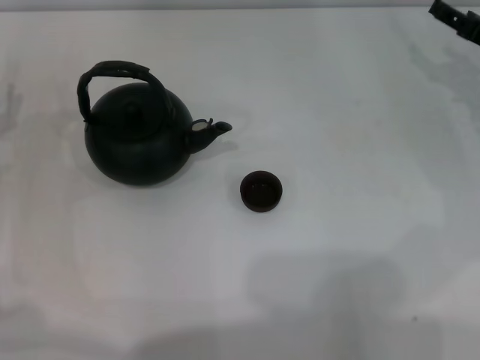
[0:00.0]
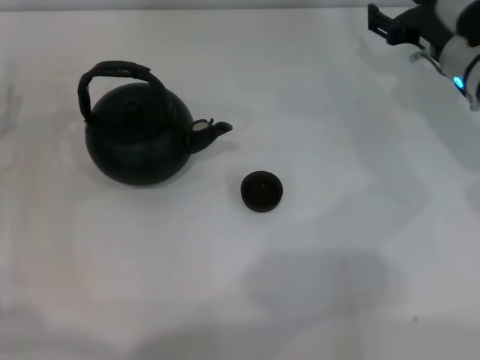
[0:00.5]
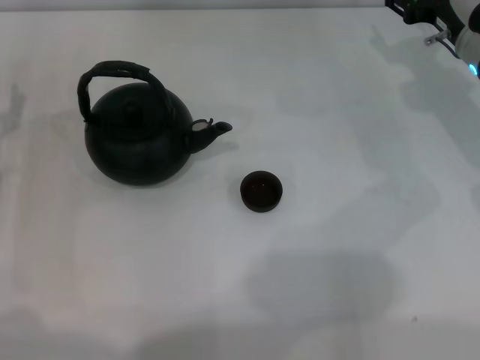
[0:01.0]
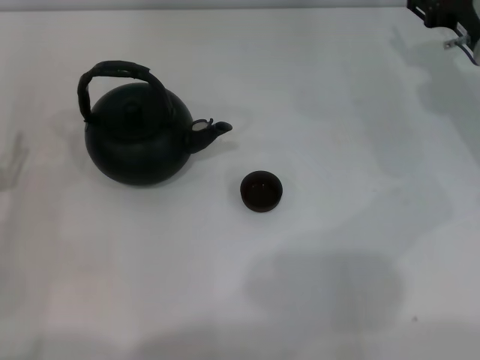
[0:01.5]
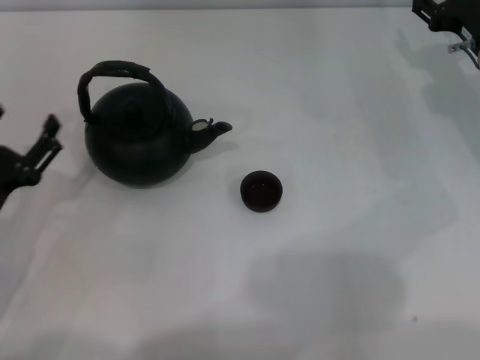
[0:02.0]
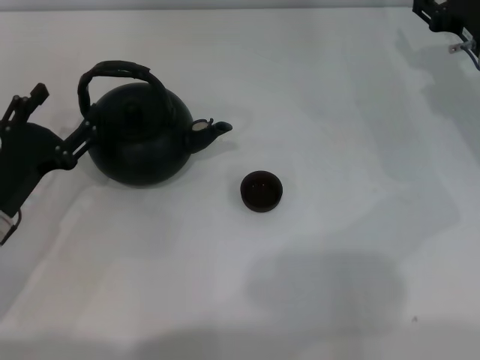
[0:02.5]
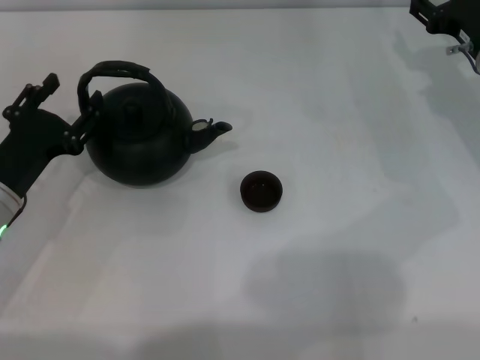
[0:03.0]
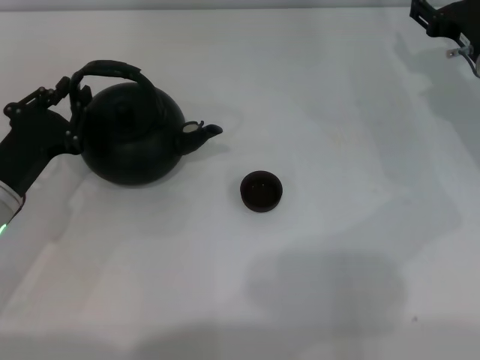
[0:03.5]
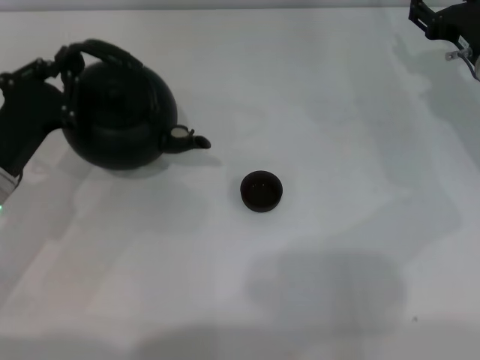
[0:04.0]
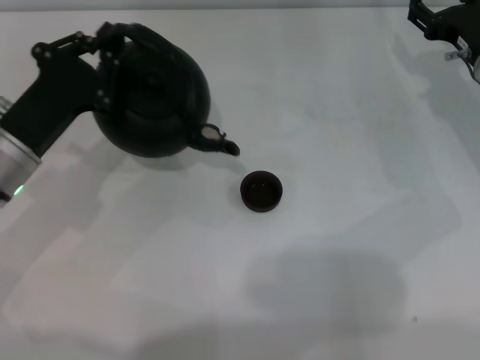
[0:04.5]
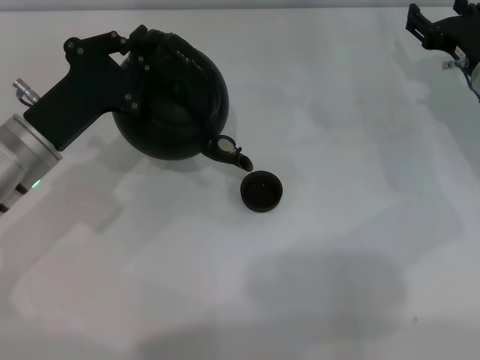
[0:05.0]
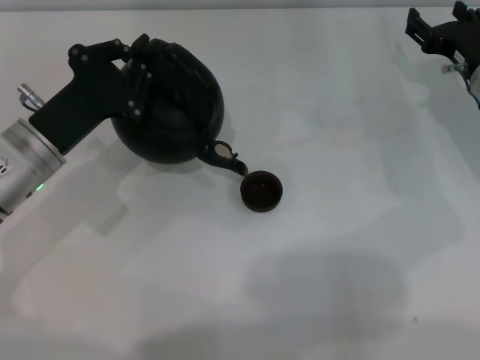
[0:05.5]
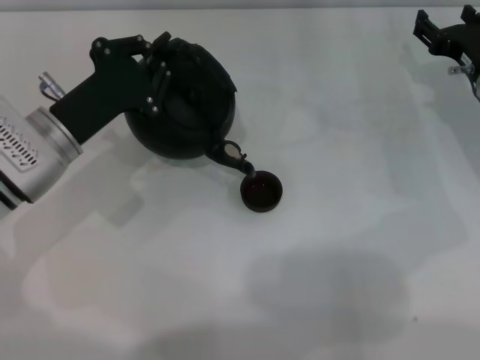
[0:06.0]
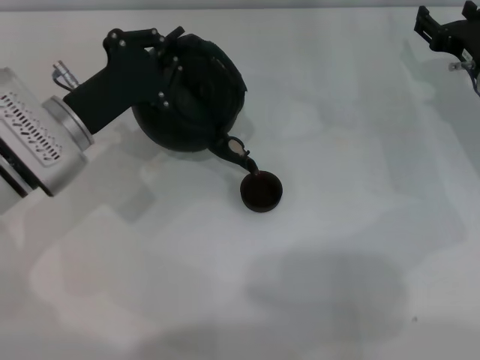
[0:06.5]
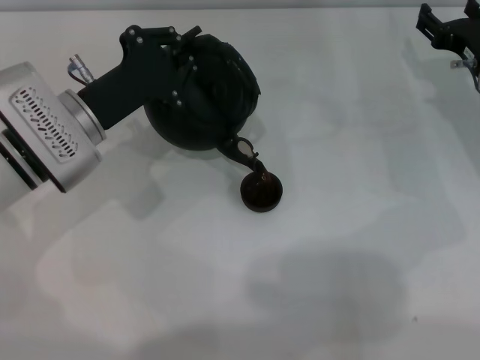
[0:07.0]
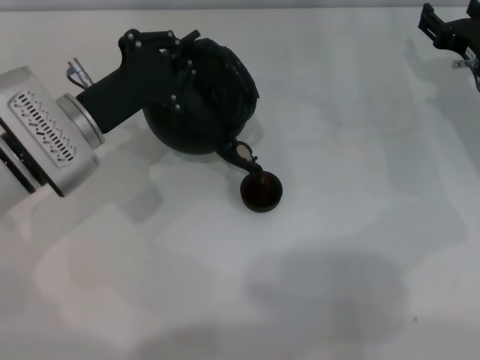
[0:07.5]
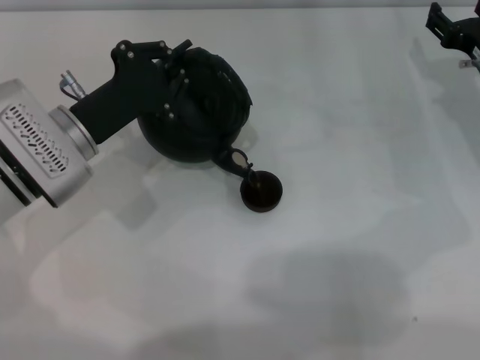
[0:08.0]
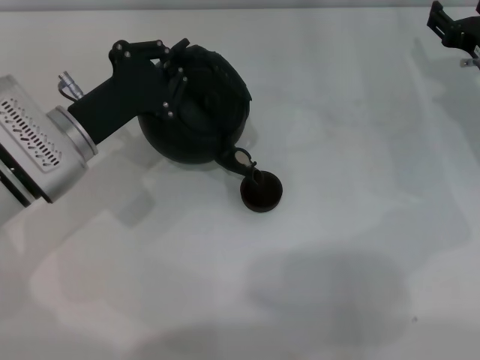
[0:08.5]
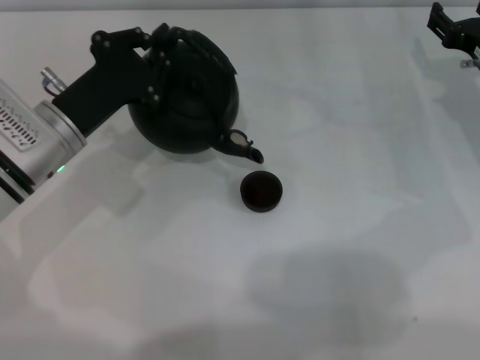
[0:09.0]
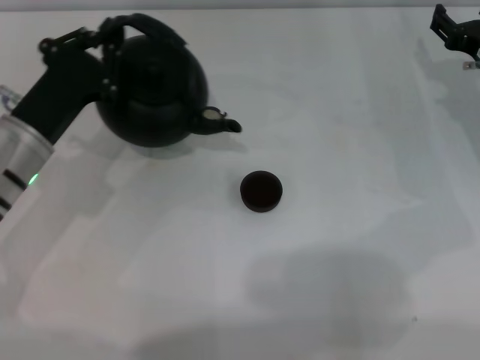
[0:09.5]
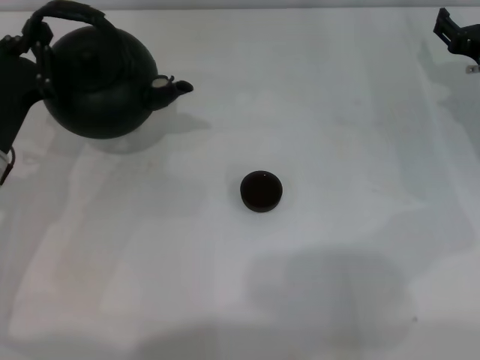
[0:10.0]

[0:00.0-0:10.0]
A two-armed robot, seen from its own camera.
Task of the whole recording: Grasp the handle of the teapot with one hand and pour tea into the teacup.
Step, 0:00.0 to 0:04.0: Pick up the teapot with the left gripper.
Step, 0:04.5 to 0:09.0: Pour tea into the teacup with the left gripper.
0:00.0 to 0:02.0: The left gripper heads backward, covering approximately 10 cm.
0:02.0 to 0:04.0: The left gripper moves forward, roughly 5 cm, and closes its fingers.
0:04.0 to 0:06.0: The left gripper moves to the right, approximately 5 cm.
0:06.0 to 0:08.0: There are only small adjustments of the grippers.
0:08.0 to 0:10.0: The left gripper goes approximately 5 cm to the left.

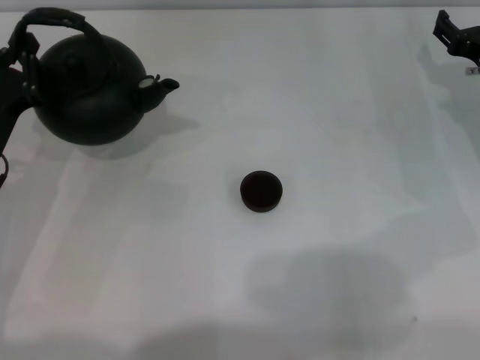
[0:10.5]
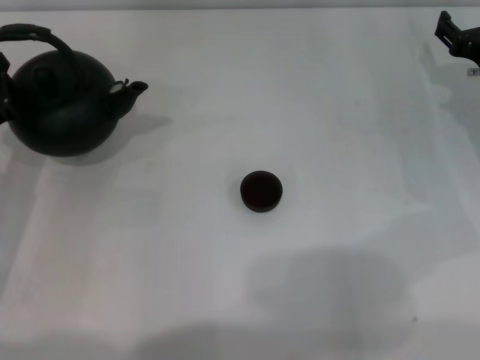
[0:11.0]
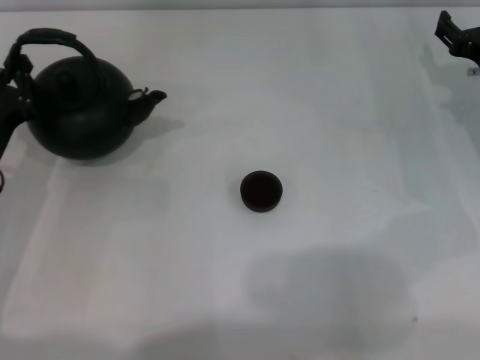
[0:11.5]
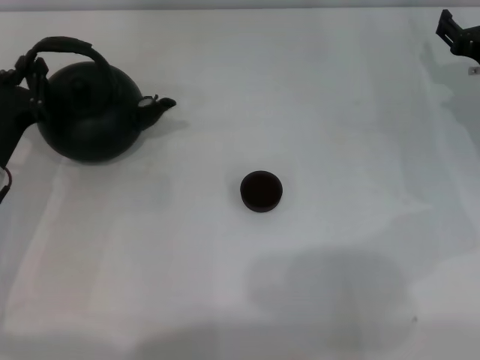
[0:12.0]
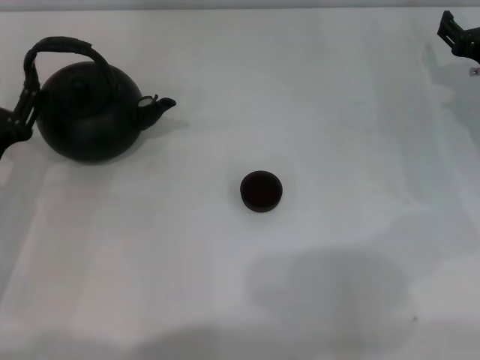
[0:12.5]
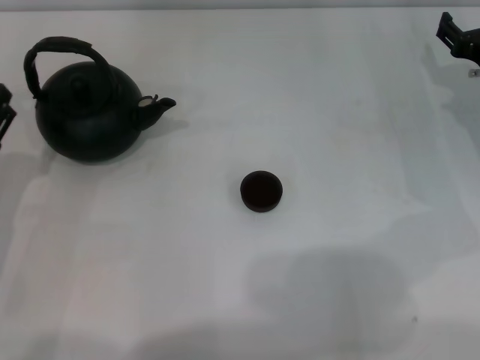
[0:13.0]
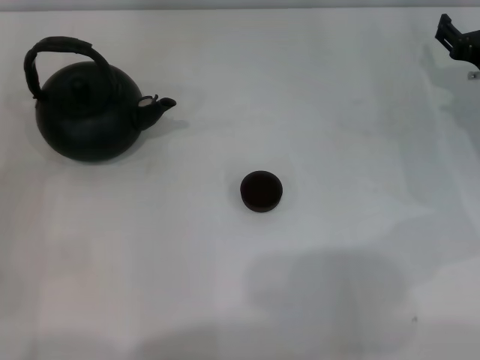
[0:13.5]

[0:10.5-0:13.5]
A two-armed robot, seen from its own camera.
Task of the whole recording: Grasp the handle of the teapot with one hand and pour tea into the teacup.
Step, 0:10.5 to 0:12.5: Put down the teapot with the left gripper.
0:10.5 to 0:12.0: The grippers make only small movements.
0:12.0 to 0:13.5: The left gripper travels backward and to the left by roughly 10 cm, and opens.

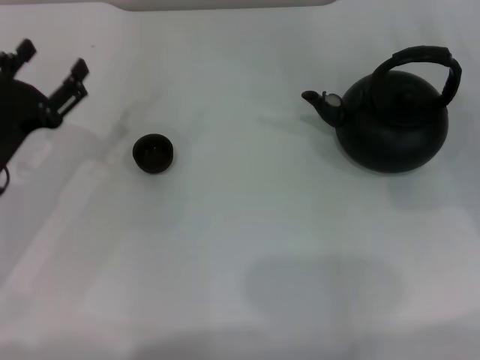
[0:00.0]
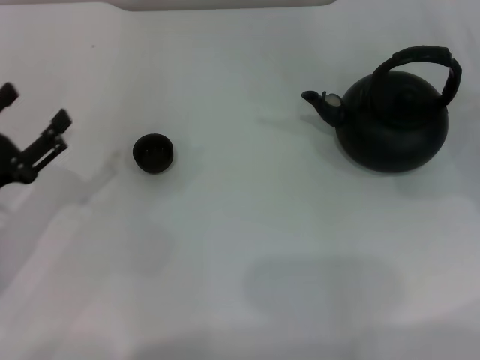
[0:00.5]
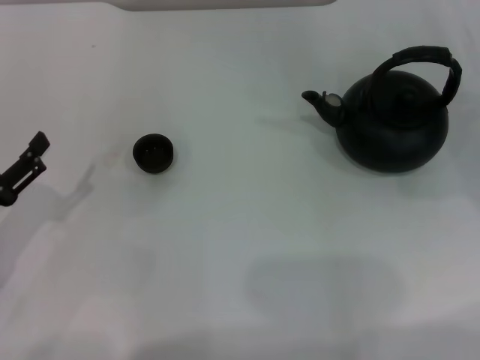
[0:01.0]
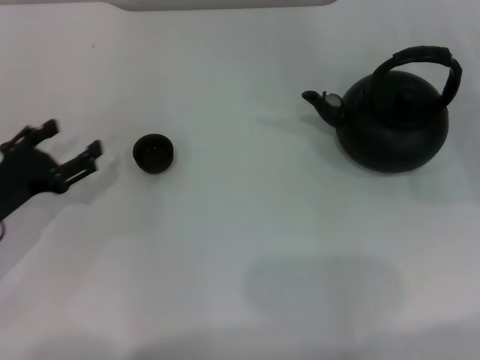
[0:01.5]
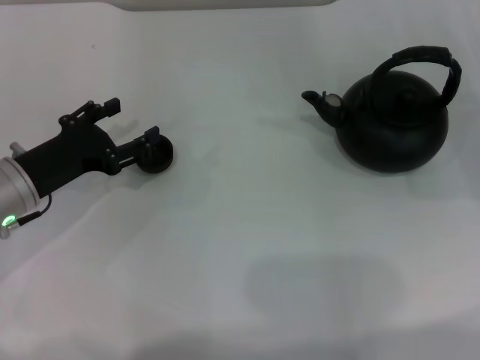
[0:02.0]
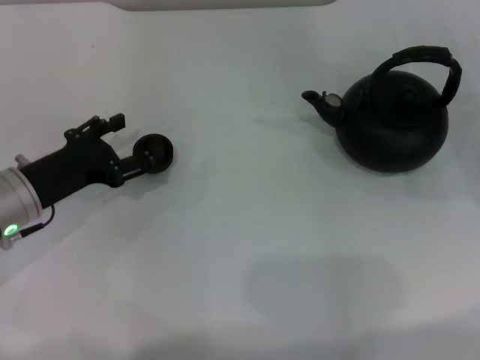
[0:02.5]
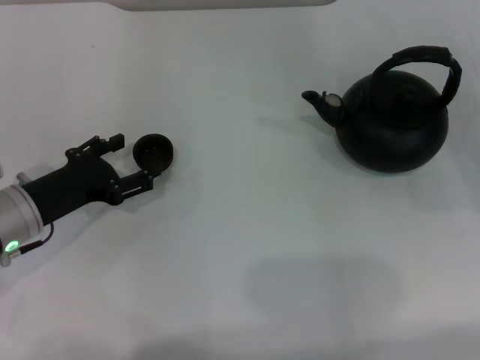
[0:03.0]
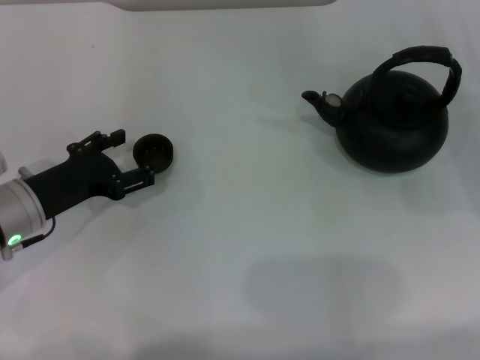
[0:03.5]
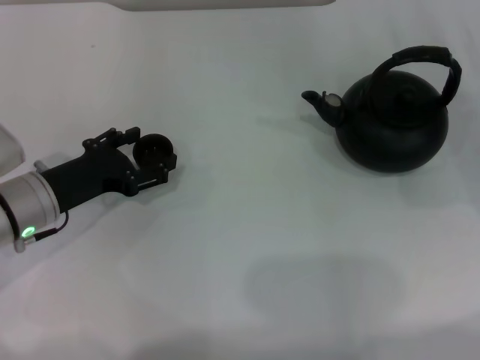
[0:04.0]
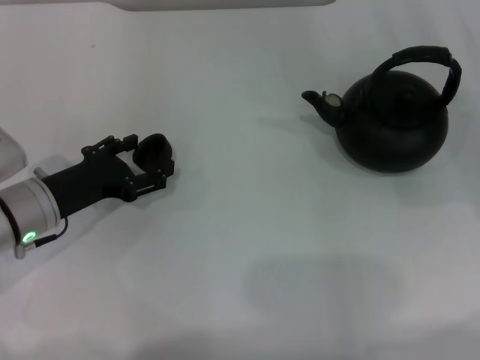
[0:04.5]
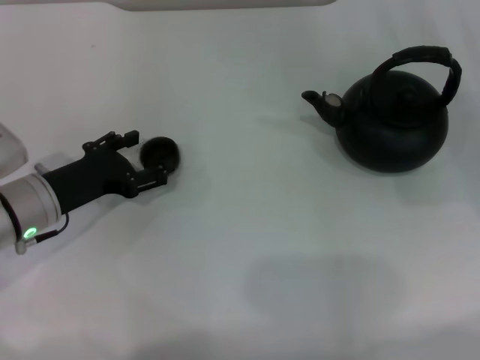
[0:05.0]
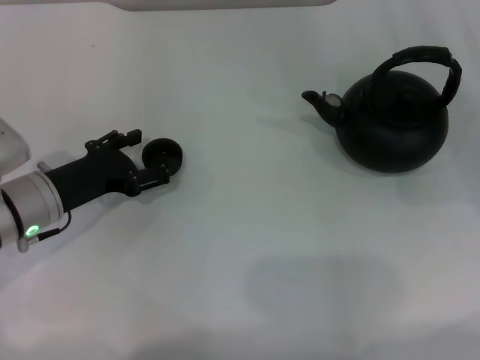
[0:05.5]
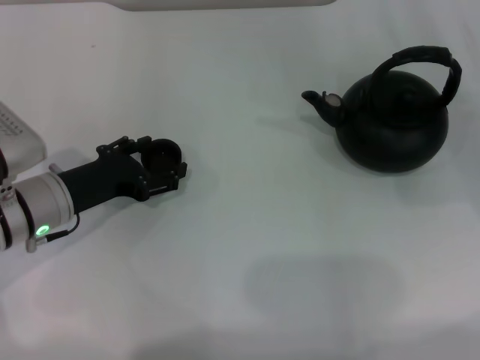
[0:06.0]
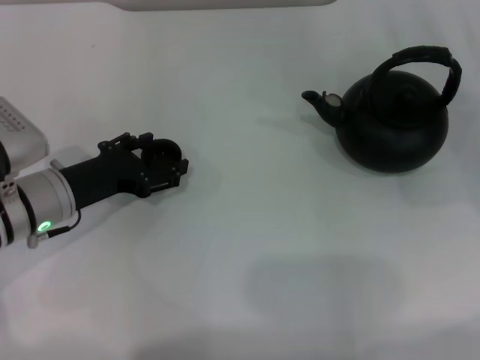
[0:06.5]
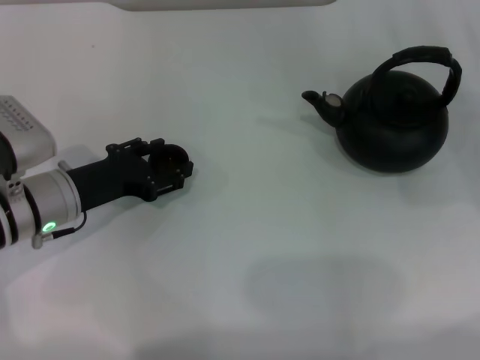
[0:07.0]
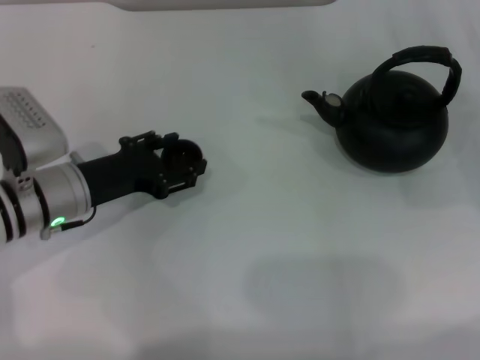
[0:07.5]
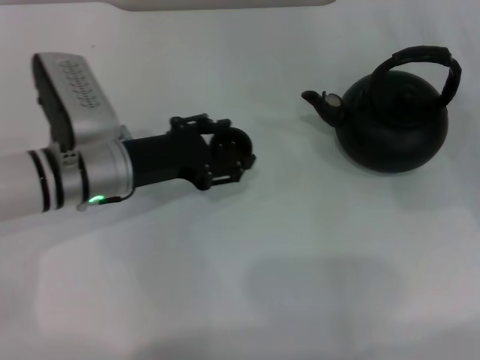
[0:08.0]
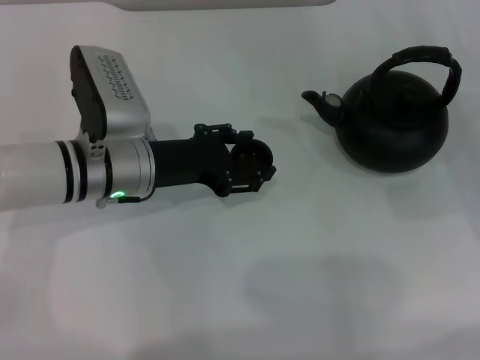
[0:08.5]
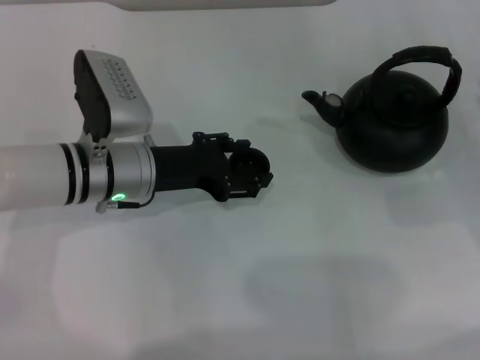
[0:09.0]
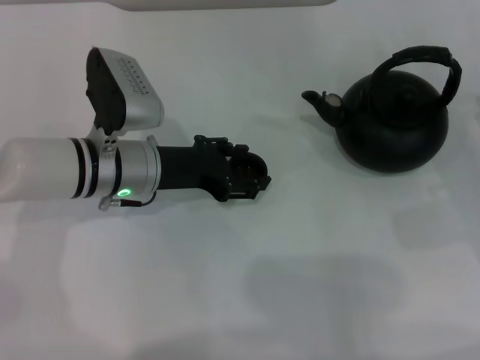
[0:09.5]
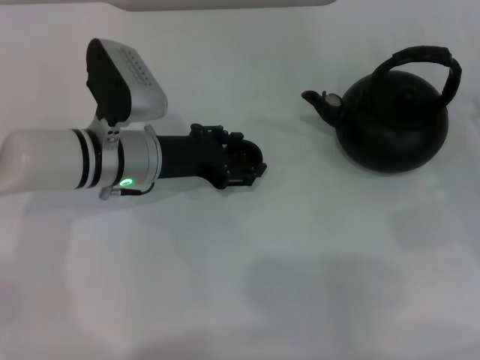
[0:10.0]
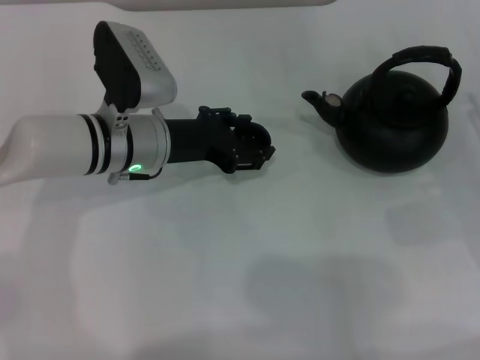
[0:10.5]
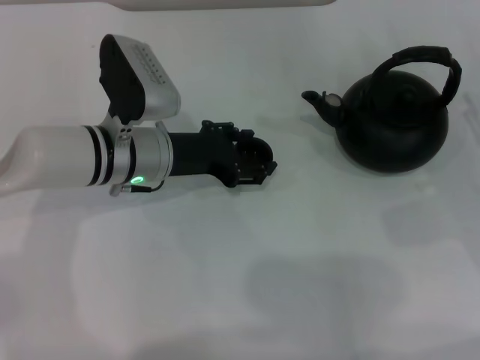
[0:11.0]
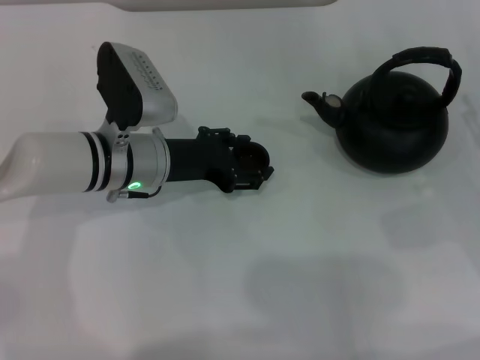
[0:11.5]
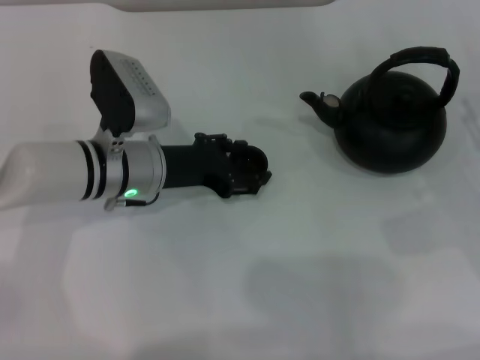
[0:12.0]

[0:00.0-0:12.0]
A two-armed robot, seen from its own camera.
Task of the whole recording: Grasp the handle of the teapot with one hand and pour tea into the teacup.
Step, 0:00.0 to 0:07.5: Pick up the teacup with the left gripper.
0:00.0 to 0:02.0: The left gripper goes backward and returns, some 10 cm each way.
0:02.0 to 0:04.0: The grippers stay close to where they were, moving slightly.
0:04.0 to 0:06.0: Both grippers stay put.
0:06.0 to 0:08.0: The left gripper travels to the right by some 5 cm, and closes.
0:08.0 to 0:10.0: The right gripper ends up roughly 5 cm from where it was.
0:10.0 to 0:12.0: There are only small adjustments of the grippers.
